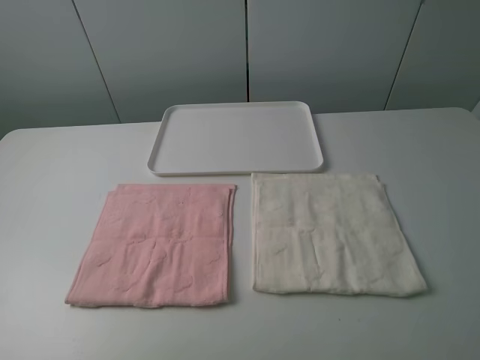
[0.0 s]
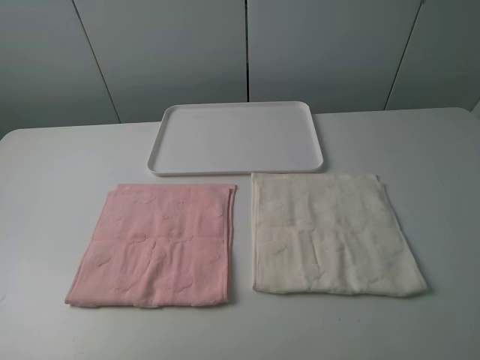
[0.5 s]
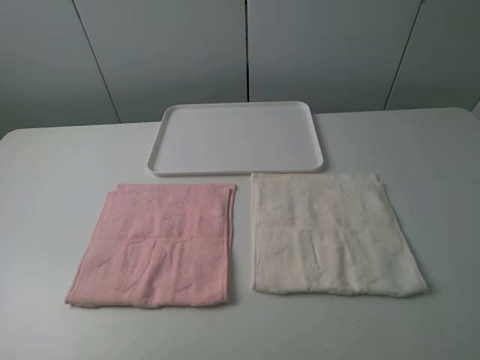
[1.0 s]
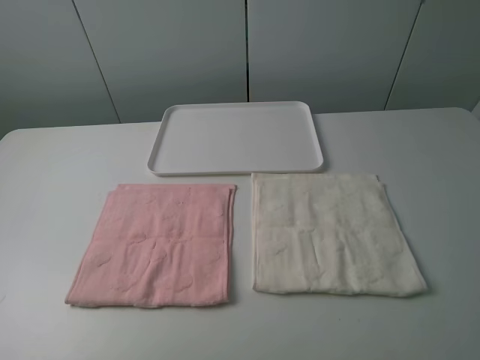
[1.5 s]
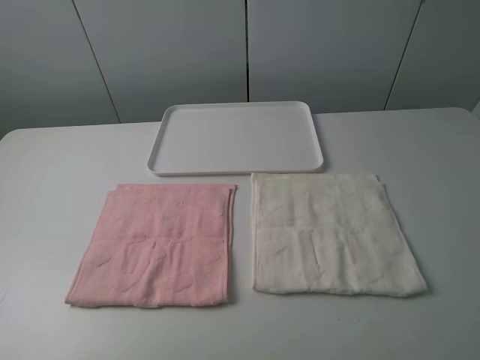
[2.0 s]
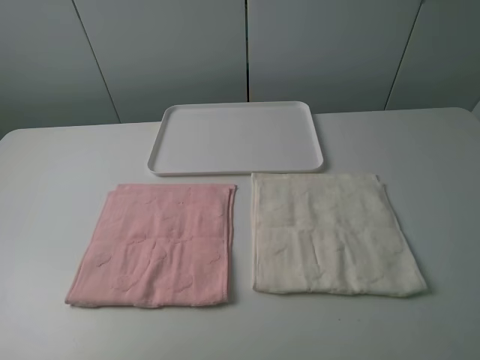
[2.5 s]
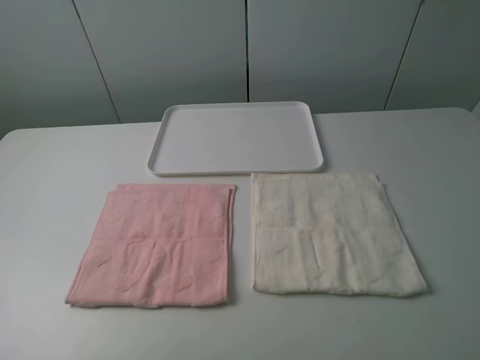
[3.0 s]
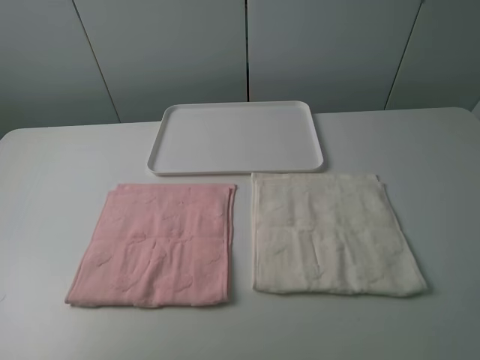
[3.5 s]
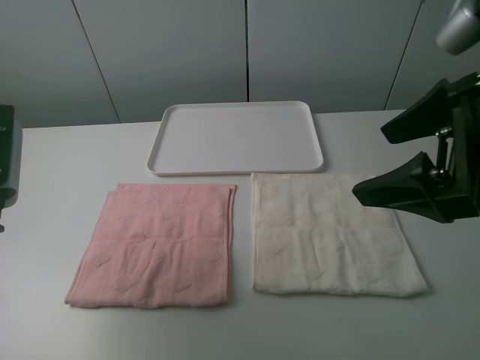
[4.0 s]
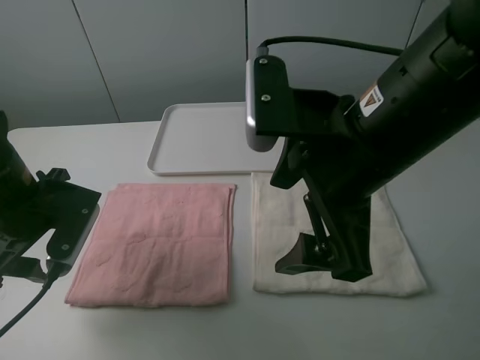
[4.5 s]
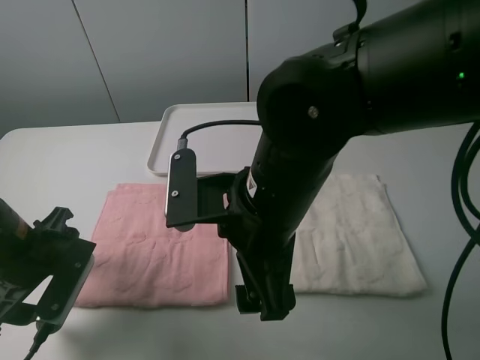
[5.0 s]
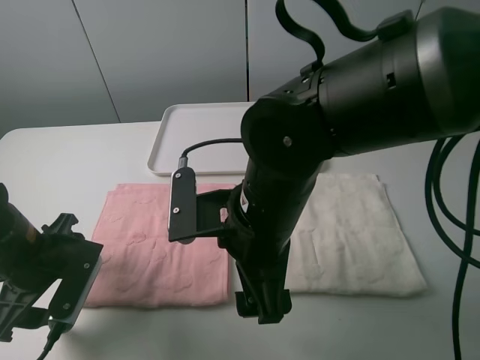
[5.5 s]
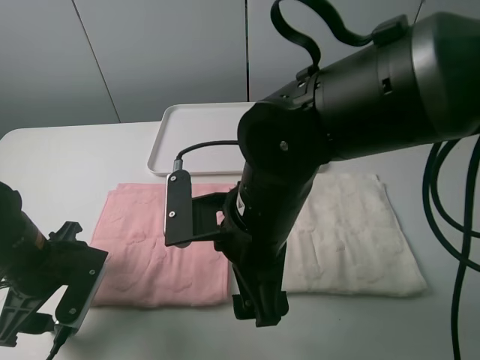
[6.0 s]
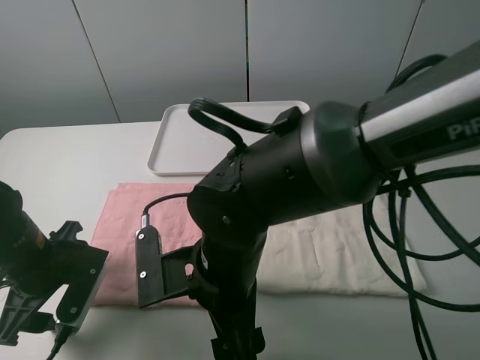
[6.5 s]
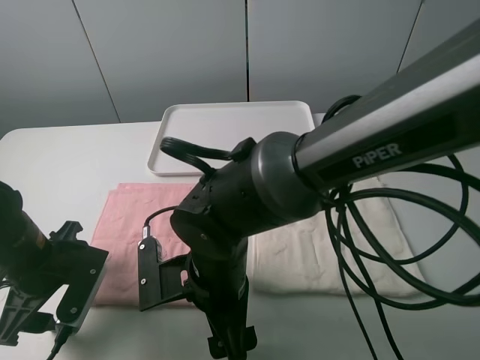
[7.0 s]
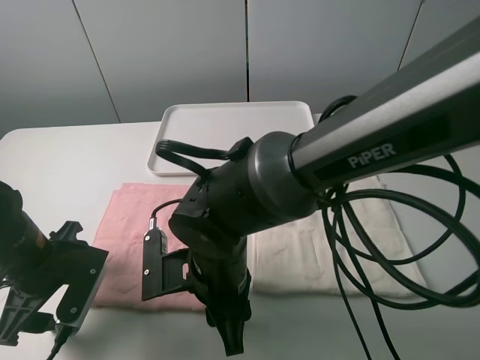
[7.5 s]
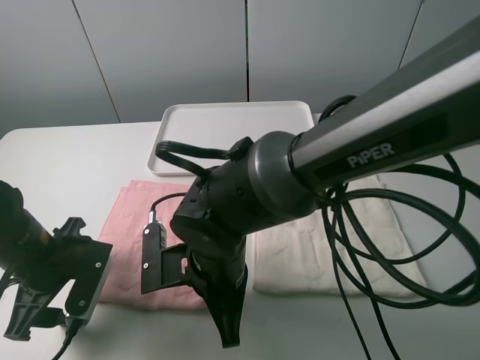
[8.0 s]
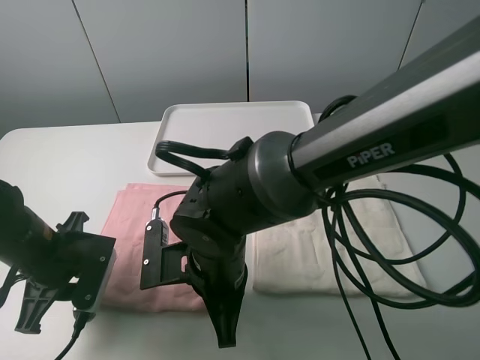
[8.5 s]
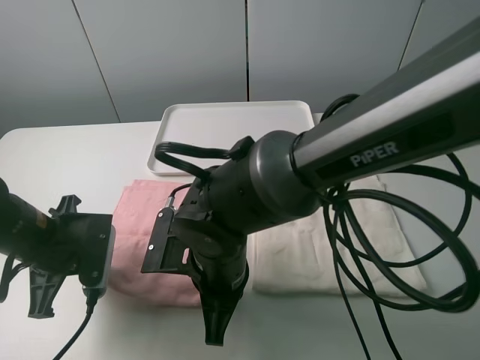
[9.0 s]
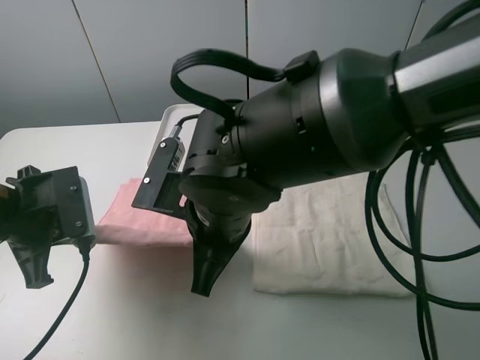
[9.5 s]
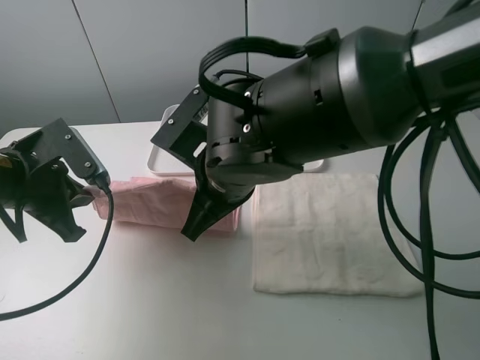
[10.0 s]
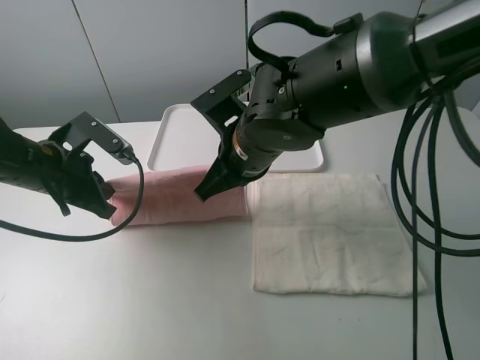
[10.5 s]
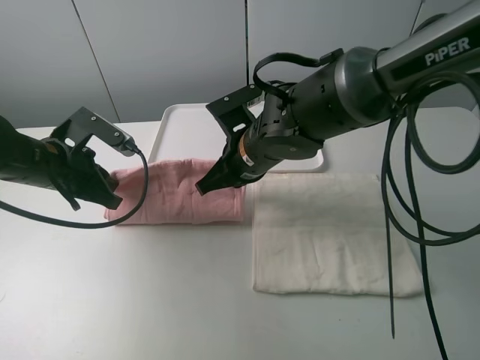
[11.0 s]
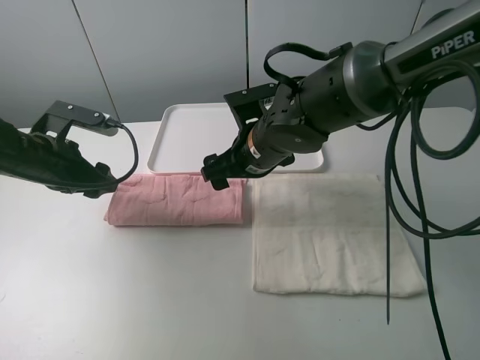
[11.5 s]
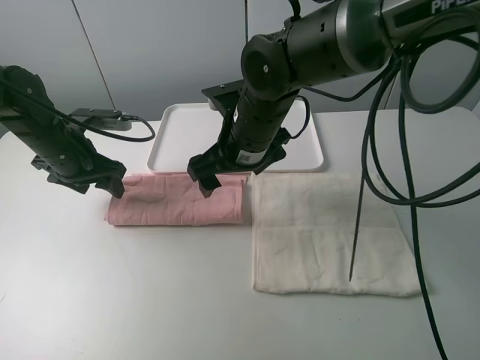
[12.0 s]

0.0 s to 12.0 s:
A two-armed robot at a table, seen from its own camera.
Task of the whole recording: fold one of the towels by two grippers and place it on the tray,then fold another towel by two grippers and place it on the folded towel.
Step, 0.0 to 8.5 s: Grasp the pink towel with the left gripper.
Step, 9.0 to 11.0 s: Fold the pink towel upwards with the left gripper.
0.0 to 2.0 s: Neither gripper changes place.
2.0 to 4.0 s: The left gripper heads forward, covering about 20 cm, while the right gripper moves forward and to the left, roughly 20 cm.
4.0 to 6.0 s: The left gripper goes some 15 cm downward. The right gripper is displaced to the left and downward by roughly 20 cm.
6.0 to 8.0 s: The right gripper moves downward, approximately 10 cm, and closes up.
8.0 to 10.0 s: The right gripper heads upward and forward, covering roughly 10 cm, while the left gripper moves upward, about 10 cm, and closes.
10.0 to 12.0 s: Both grippers travel together forward, approximately 10 cm. The right gripper opens its fingers. Meanwhile the left gripper opens its fingers.

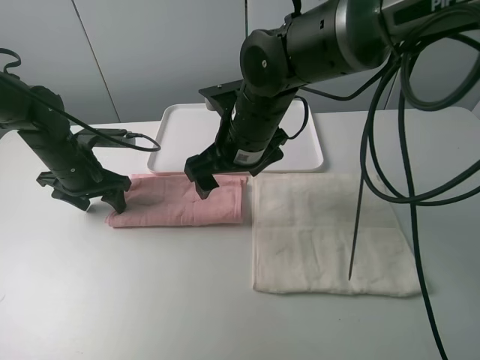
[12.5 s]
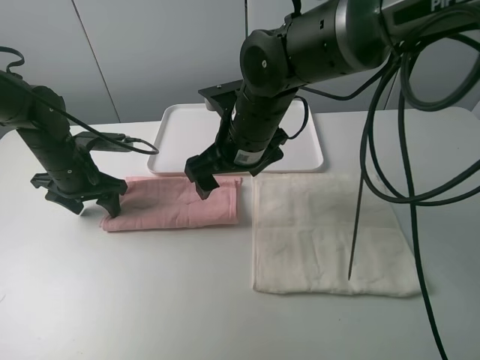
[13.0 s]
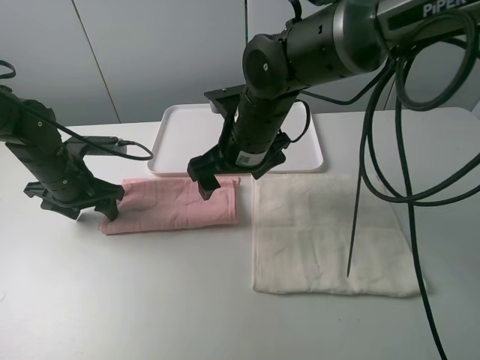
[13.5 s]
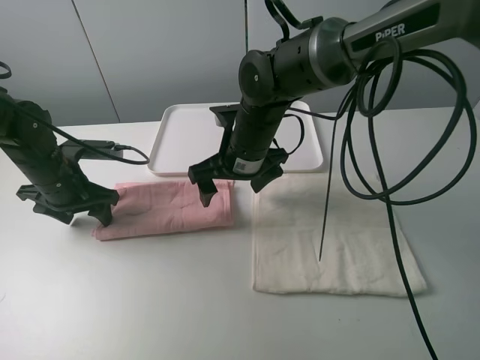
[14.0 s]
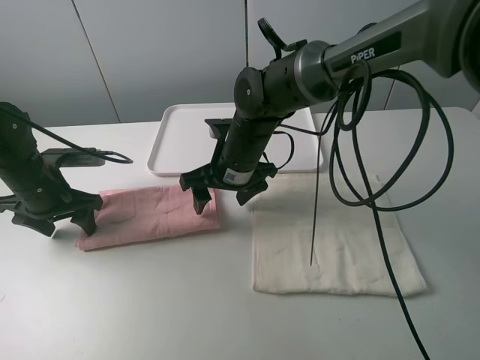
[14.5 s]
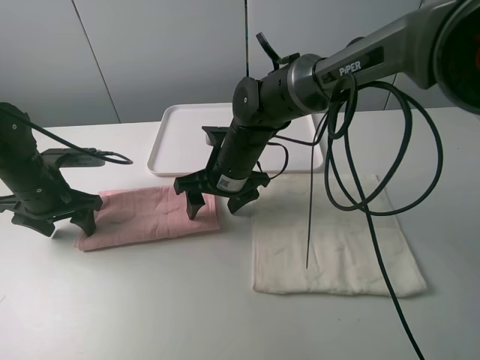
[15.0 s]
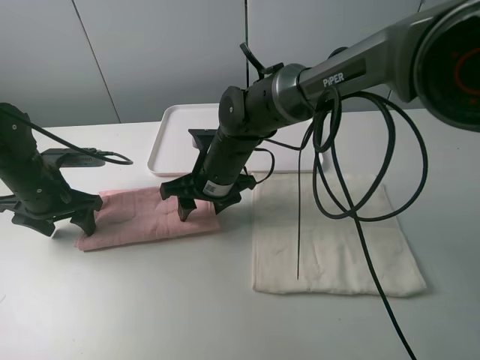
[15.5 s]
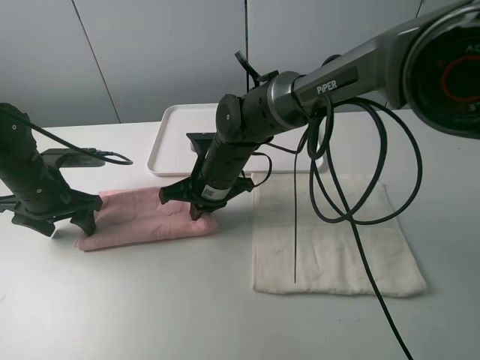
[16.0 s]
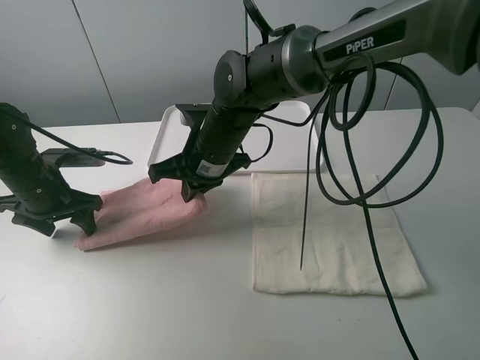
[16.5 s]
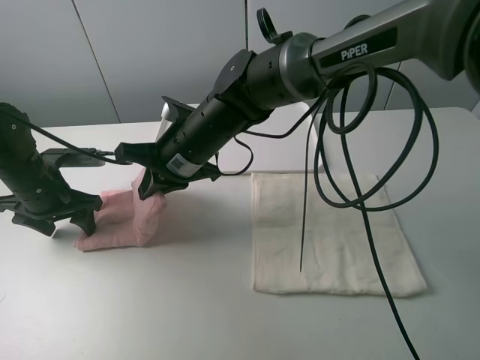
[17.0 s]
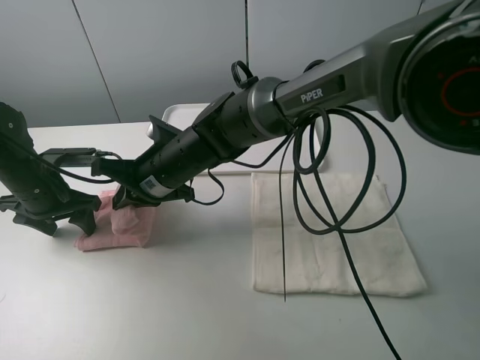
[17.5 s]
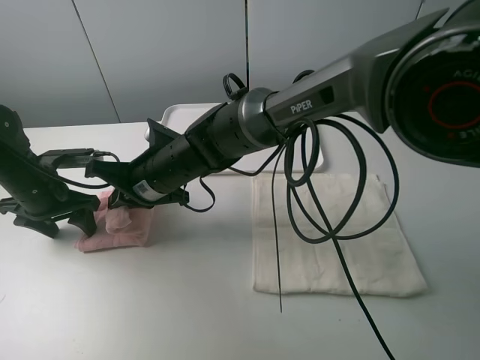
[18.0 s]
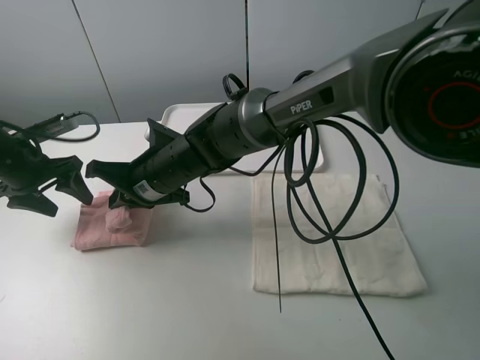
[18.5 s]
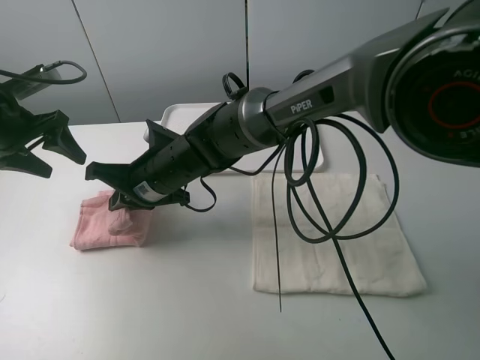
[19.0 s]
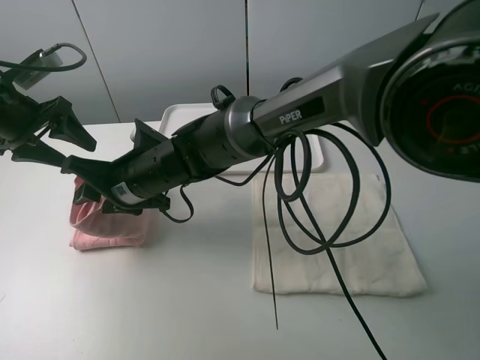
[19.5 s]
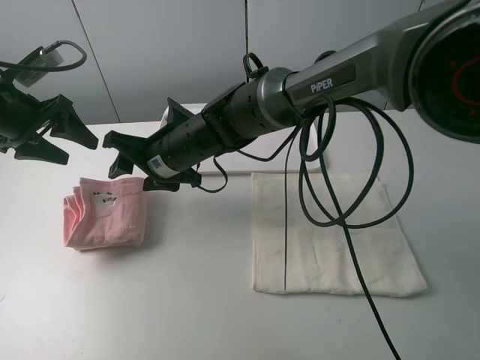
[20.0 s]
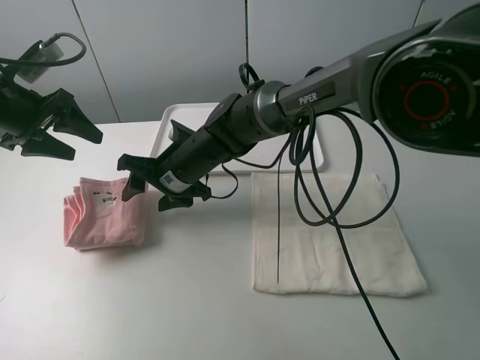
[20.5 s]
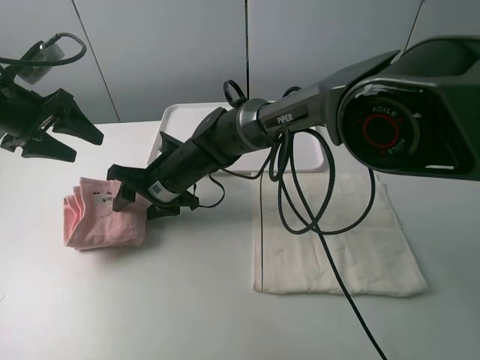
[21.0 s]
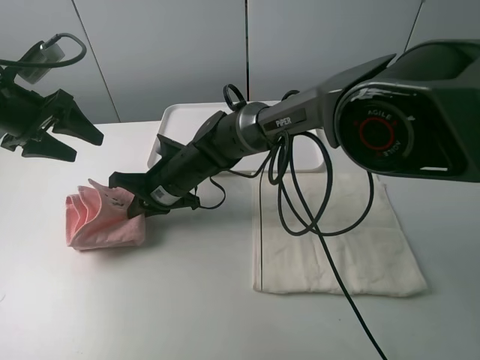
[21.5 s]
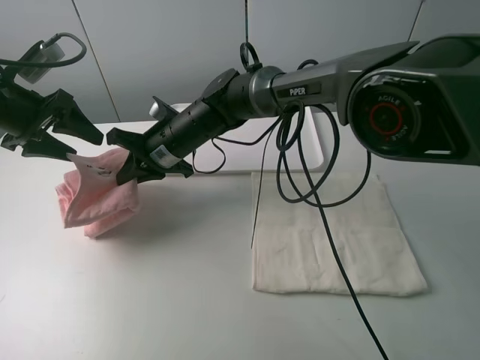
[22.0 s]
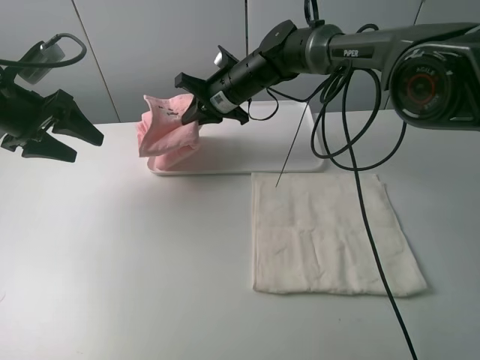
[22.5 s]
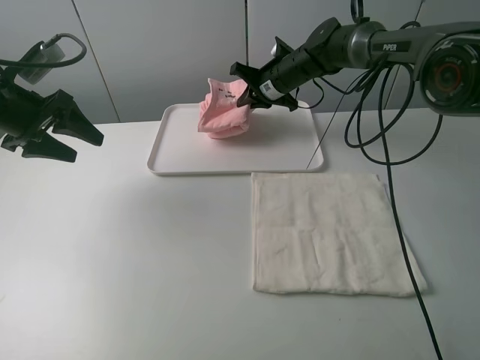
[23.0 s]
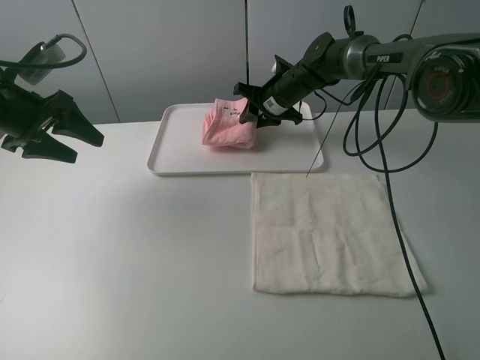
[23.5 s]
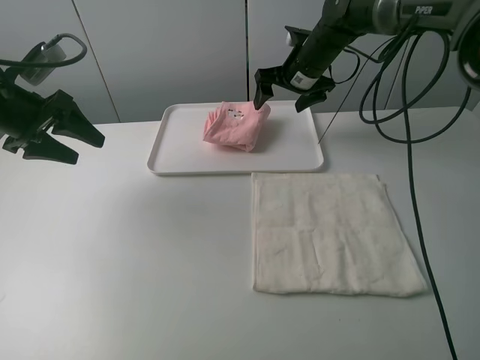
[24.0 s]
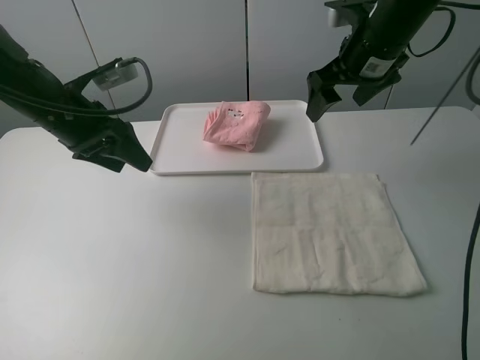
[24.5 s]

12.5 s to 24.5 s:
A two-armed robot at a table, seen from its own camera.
Task of the whole recording: fold one of the towels by two grippers and place it on the tray,then fold another towel by two grippers and place it on the folded towel.
Step, 13.5 to 15.5 s: Grasp the pink towel with the right gripper.
Step, 16.0 to 19.5 s: Fold the pink towel from right to left with right gripper.
Step, 20.0 to 21.5 s: Grasp the pink towel with the right gripper.
Step, 22.0 to 23.5 s: Move the pink towel to the plate with the right gripper.
12.5 to 14.5 s: The left gripper ends up about 5 cm from where it was; the right gripper heads downward, covering roughly 5 cm.
14.5 to 16.5 s: The right gripper closes up.
16.5 to 18.5 s: The left gripper heads upward, covering roughly 5 cm, while the right gripper shifts roughly 5 cm to the left.
18.5 to 20.5 s: The left gripper travels upward by roughly 5 cm. The right gripper opens its fingers.
20.5 to 22.5 s: The right gripper goes roughly 15 cm forward and to the right, and closes up.
22.5 to 24.5 s: The right gripper shifts some 25 cm to the right, upward and backward, and opens up. The left gripper is displaced to the right by about 10 cm.

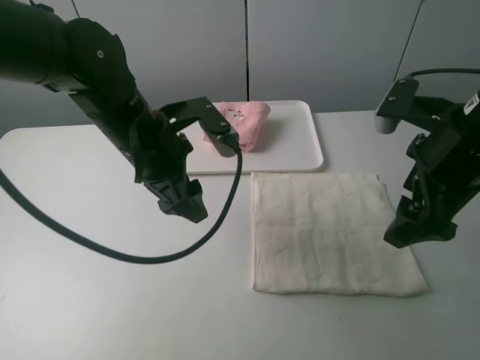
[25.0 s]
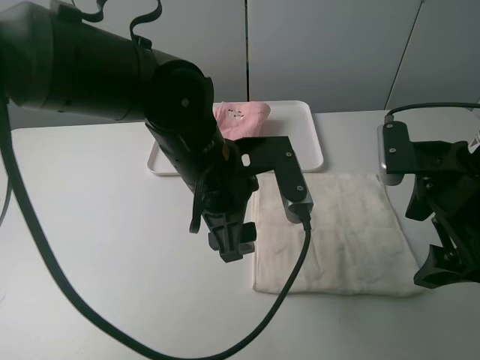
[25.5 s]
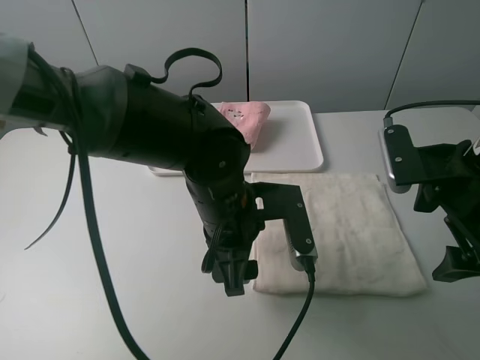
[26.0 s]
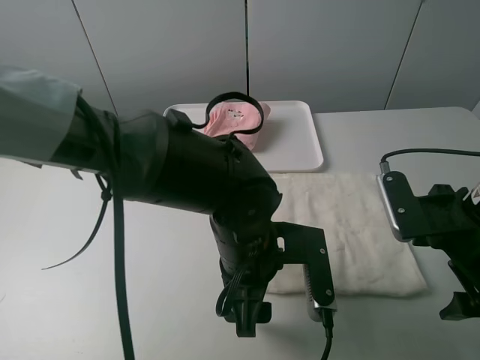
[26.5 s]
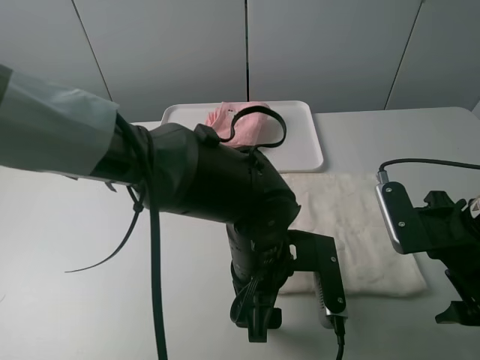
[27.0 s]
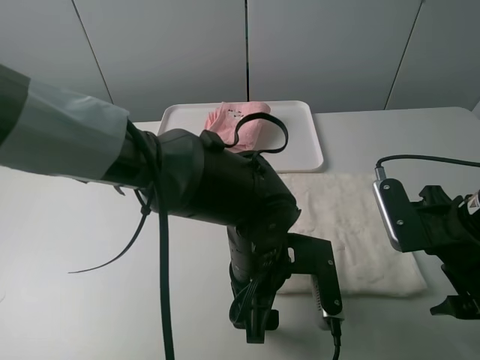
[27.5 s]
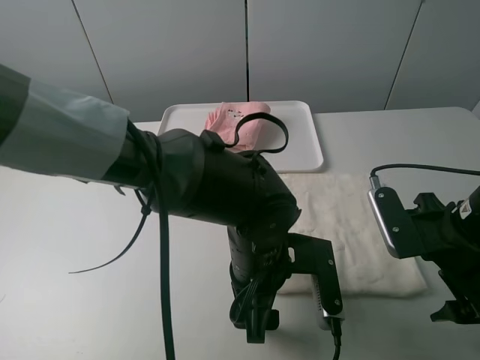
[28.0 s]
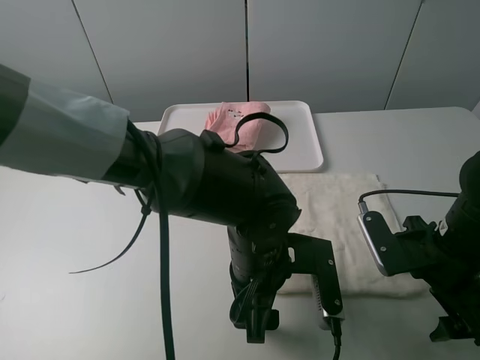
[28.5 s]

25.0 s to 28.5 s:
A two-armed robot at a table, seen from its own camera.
Task of the whole recording: fold one of the towels by two grippers and place it on the tray,then fold another towel by two grippers and place it on the folded towel.
25.0 to 27.0 s: The left gripper travels to the right, backward and downward by roughly 20 cm; the right gripper is displaced downward by approximately 5 cm.
27.0 to 28.5 s: The grippers move only a little.
